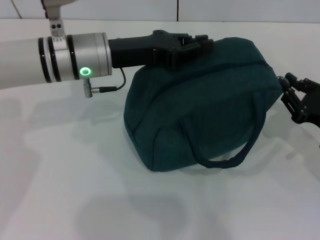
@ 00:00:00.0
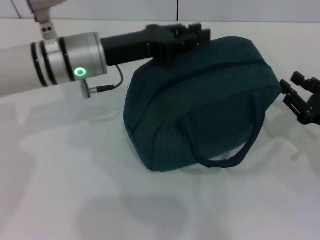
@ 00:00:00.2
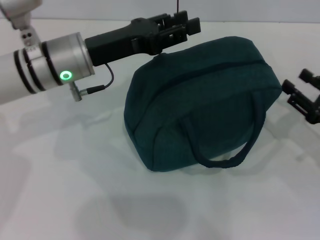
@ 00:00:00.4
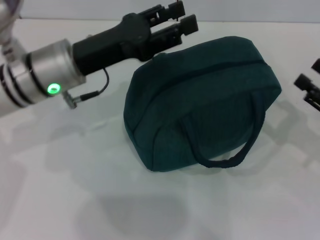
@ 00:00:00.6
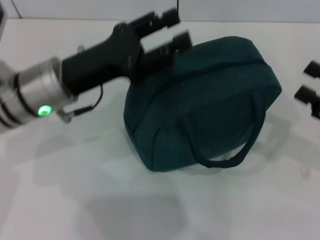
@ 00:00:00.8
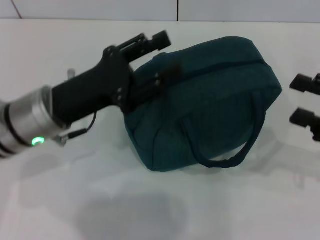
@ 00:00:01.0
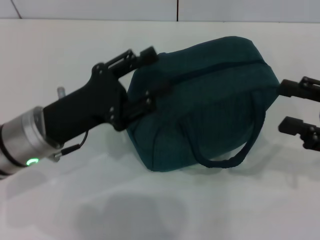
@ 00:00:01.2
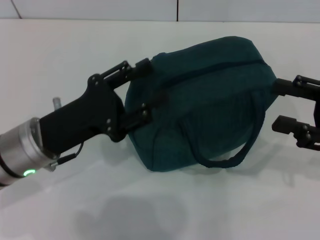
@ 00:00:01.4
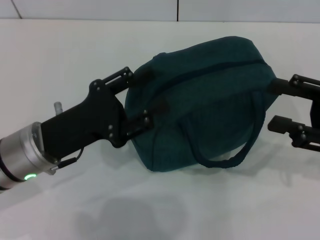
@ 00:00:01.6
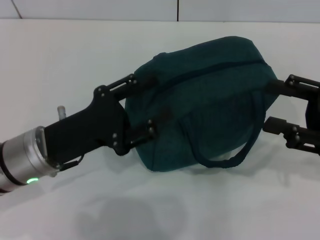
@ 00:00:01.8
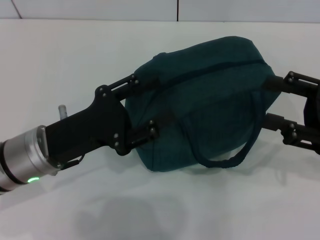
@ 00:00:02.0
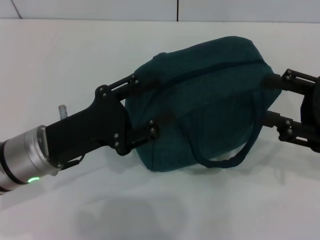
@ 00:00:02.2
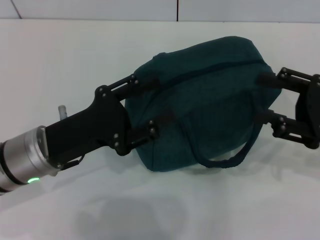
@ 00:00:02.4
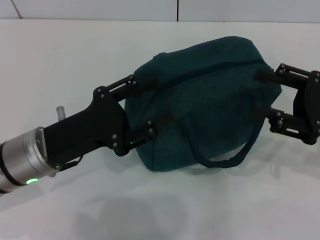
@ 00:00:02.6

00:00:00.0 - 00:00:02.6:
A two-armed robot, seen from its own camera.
Step, 00:00:00.2 - 00:00:00.4: Zip up the lunch bag with your right hand.
00:00:00.0 - 00:00:01.2: The left gripper travels backward and to the left by some 15 cm, and opens its fingers. Meanwhile the right gripper shifts about 10 cm upward, and opens up.
00:00:01.2 - 00:00:02.6: The grippers make only small movements.
